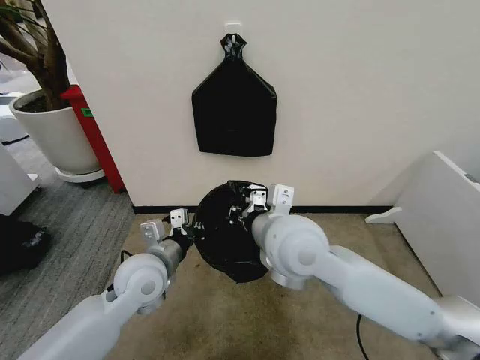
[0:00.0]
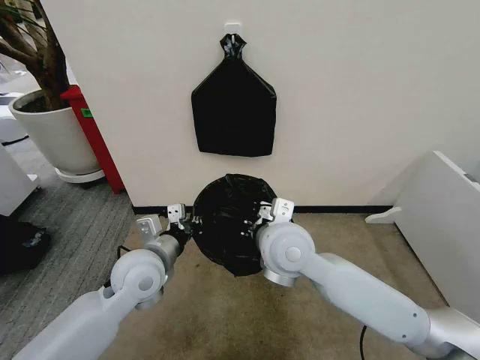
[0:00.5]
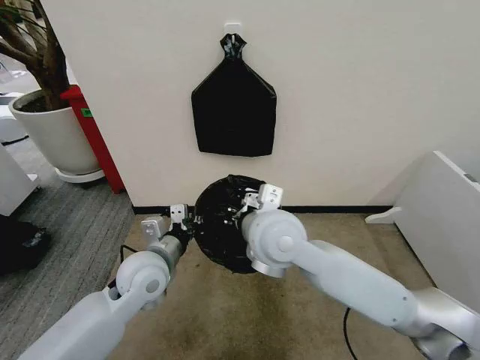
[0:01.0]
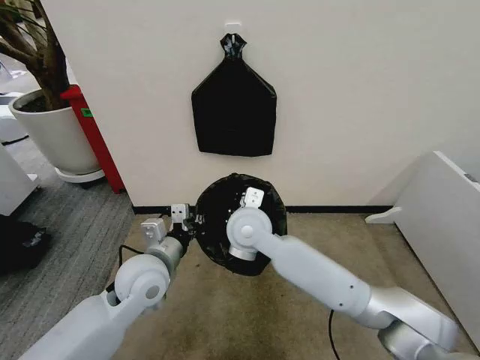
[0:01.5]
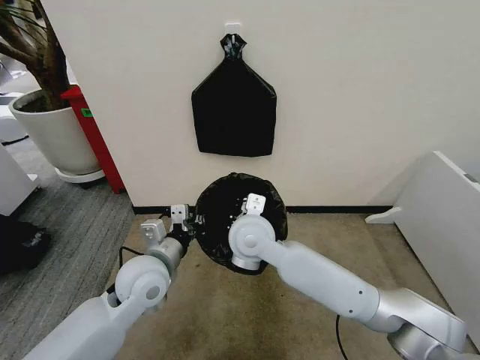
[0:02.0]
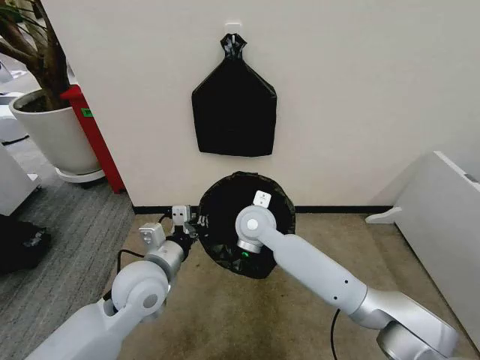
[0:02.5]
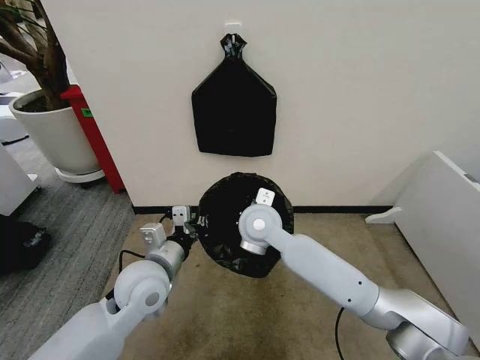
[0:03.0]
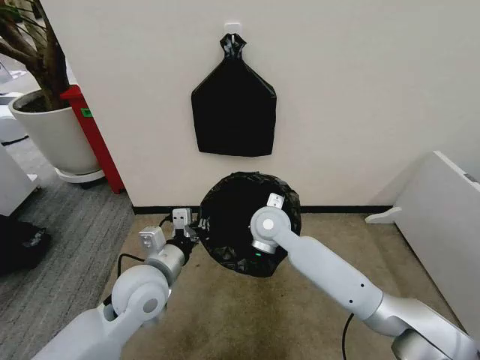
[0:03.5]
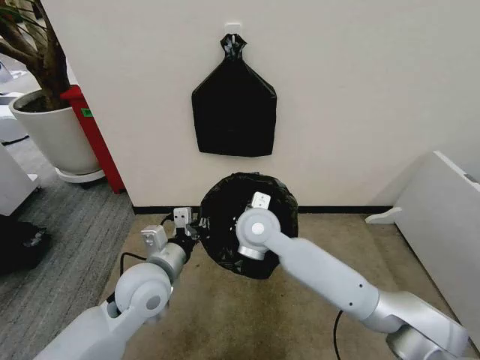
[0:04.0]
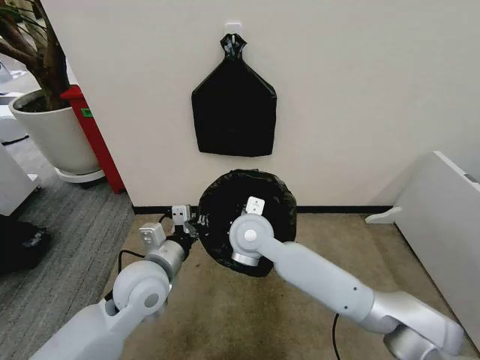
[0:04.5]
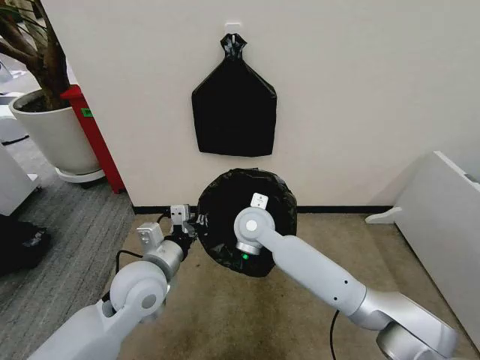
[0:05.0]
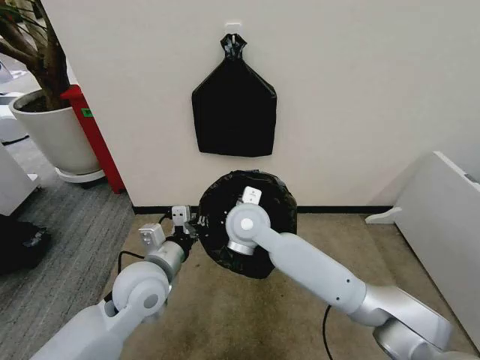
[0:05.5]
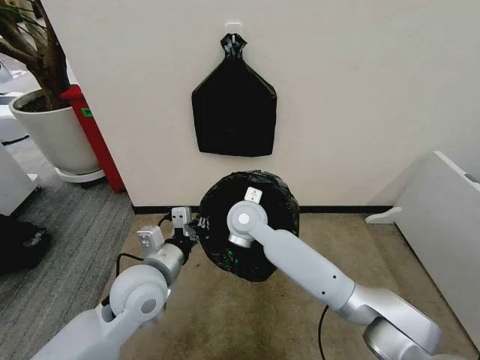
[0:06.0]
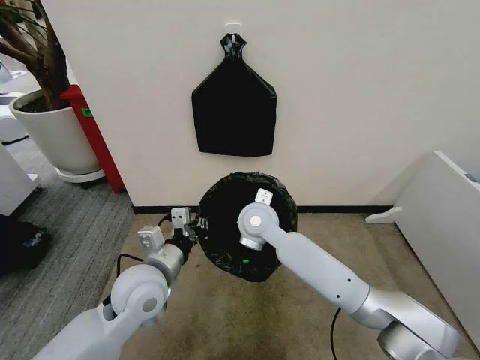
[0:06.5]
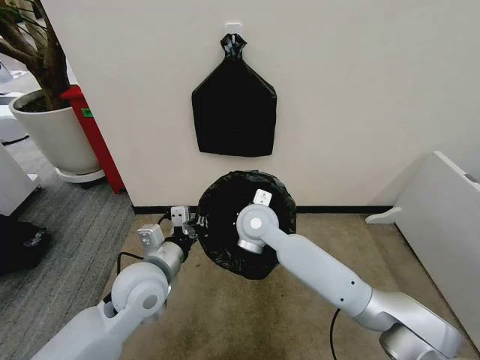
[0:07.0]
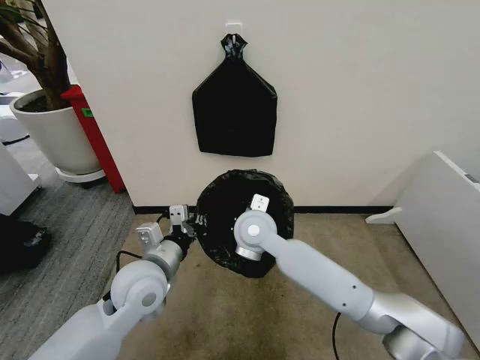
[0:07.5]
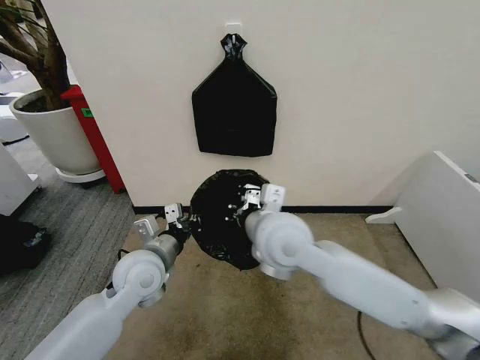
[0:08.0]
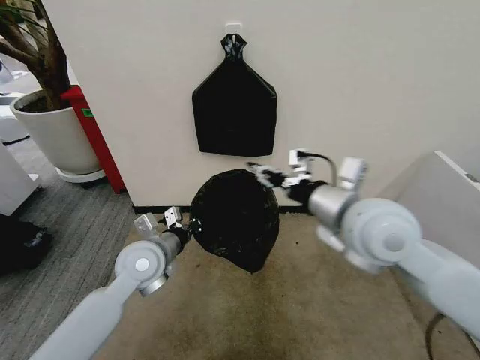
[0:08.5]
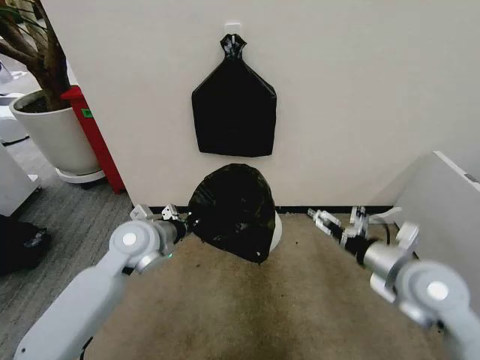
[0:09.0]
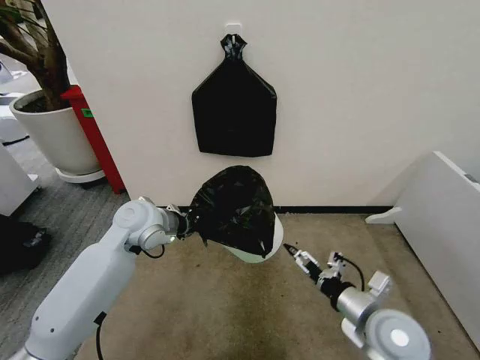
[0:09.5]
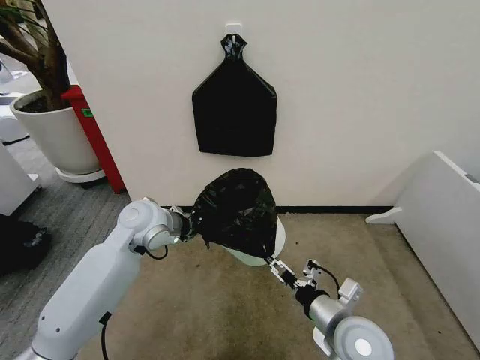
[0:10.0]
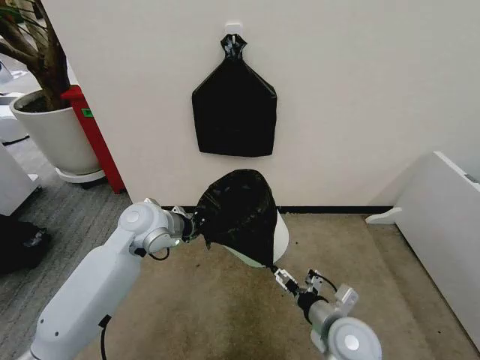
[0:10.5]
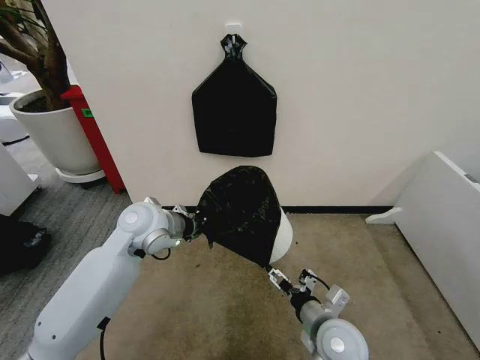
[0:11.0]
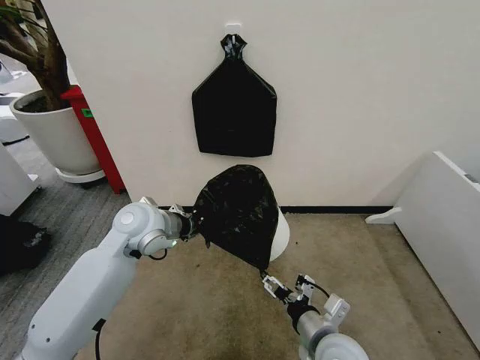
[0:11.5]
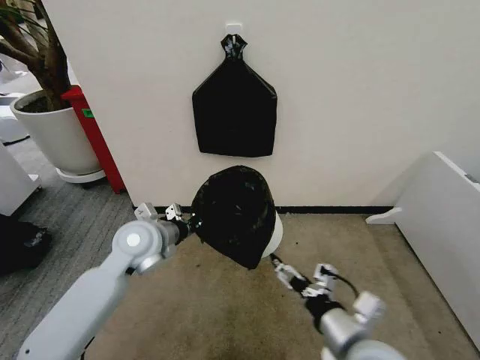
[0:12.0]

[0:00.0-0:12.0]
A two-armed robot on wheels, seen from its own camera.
Task of the whole recording: Place the garbage bag over the trash bin.
0:00.0 to 0:02.0: The right gripper travels downward, forward and to the left by approximately 10 cm.
0:04.0 to 0:06.0: The right gripper shifts by about 5 cm.
0:06.0 to 0:08.0: The right gripper travels backward, upward and to the right by some 15 cm.
0:08.0 to 0:10.0: The left gripper moves forward, approximately 10 cm. Meanwhile the right gripper is displaced downward, to the right and backward by roughly 25 cm, and opens up.
0:10.0 to 0:12.0: The right gripper moves some 5 cm.

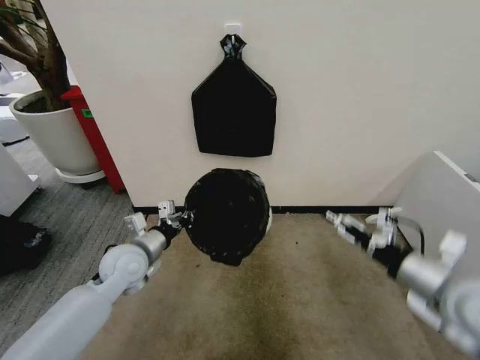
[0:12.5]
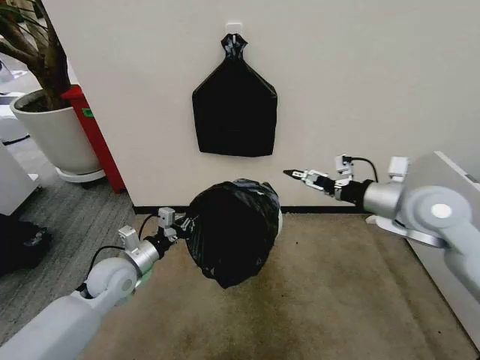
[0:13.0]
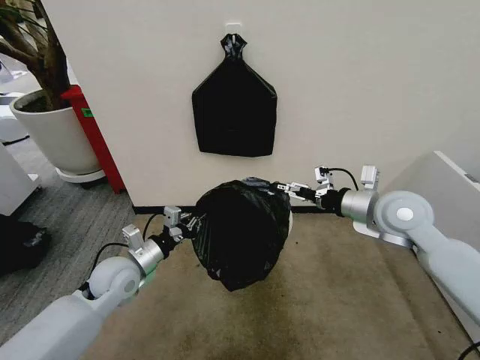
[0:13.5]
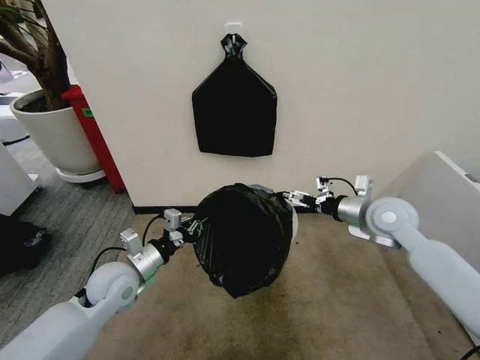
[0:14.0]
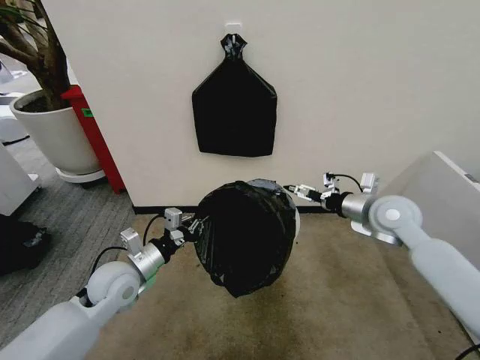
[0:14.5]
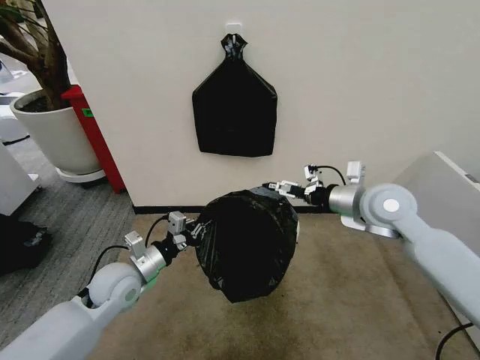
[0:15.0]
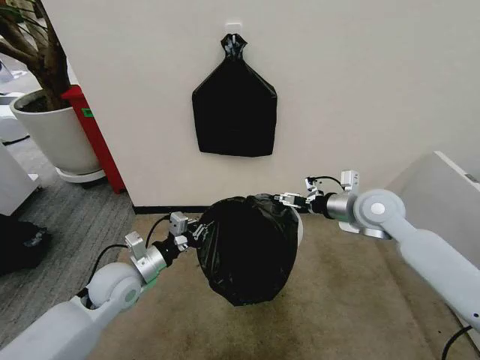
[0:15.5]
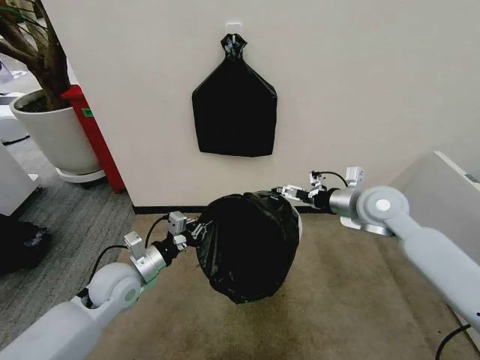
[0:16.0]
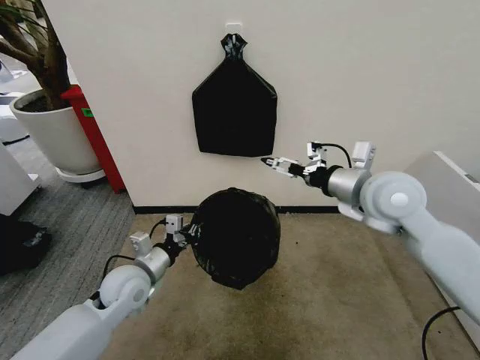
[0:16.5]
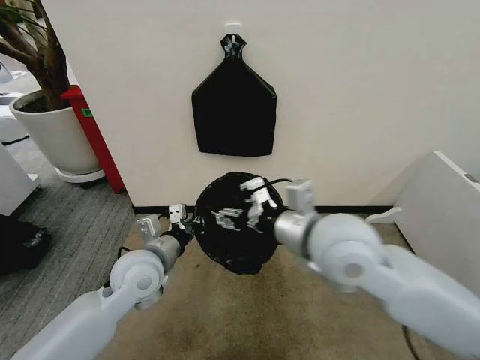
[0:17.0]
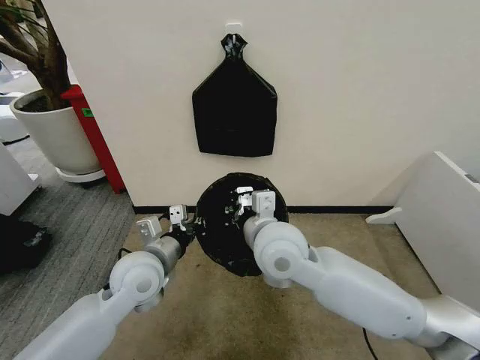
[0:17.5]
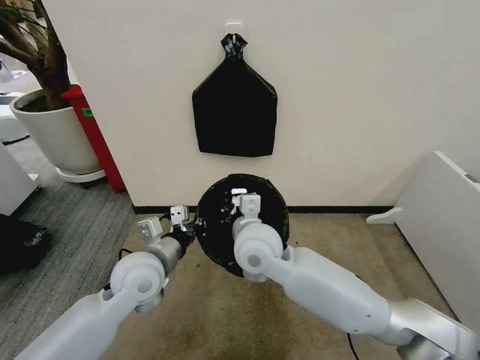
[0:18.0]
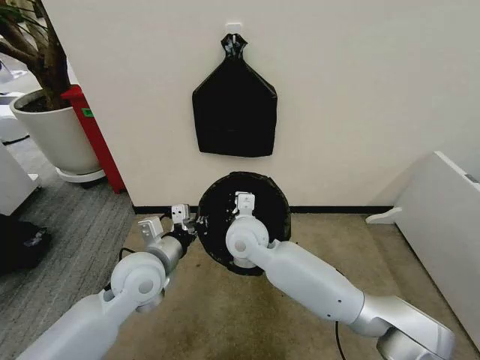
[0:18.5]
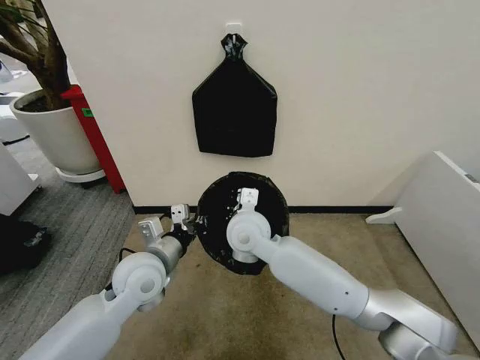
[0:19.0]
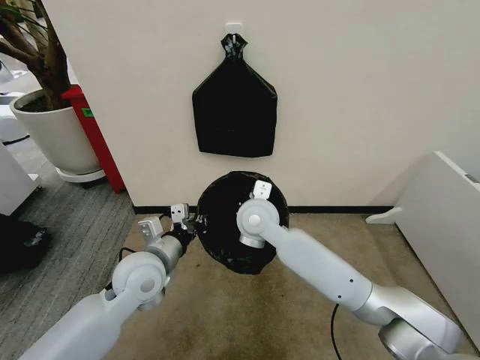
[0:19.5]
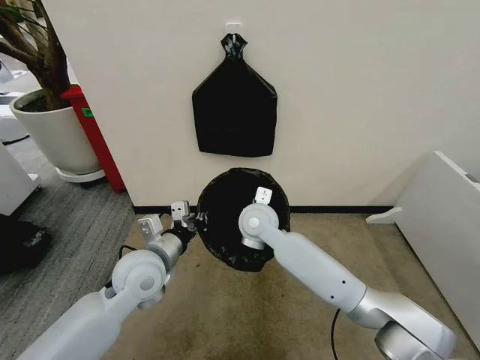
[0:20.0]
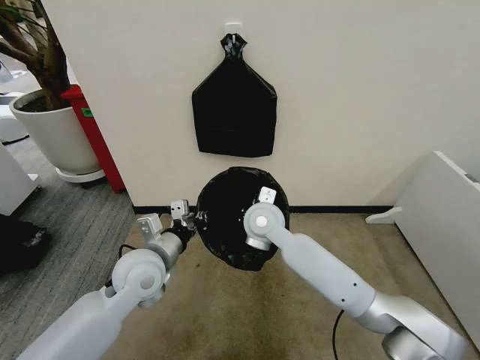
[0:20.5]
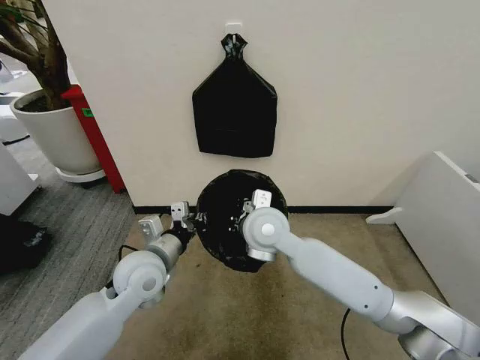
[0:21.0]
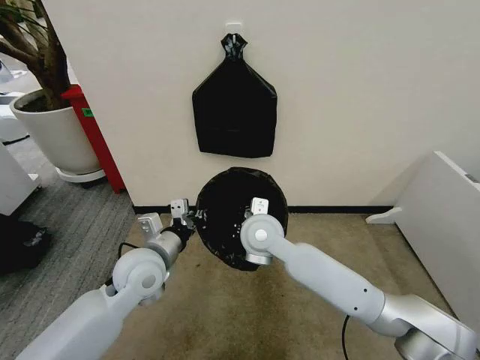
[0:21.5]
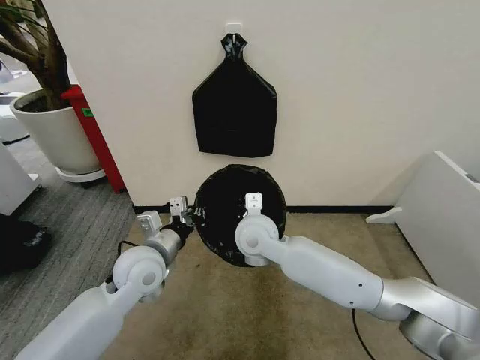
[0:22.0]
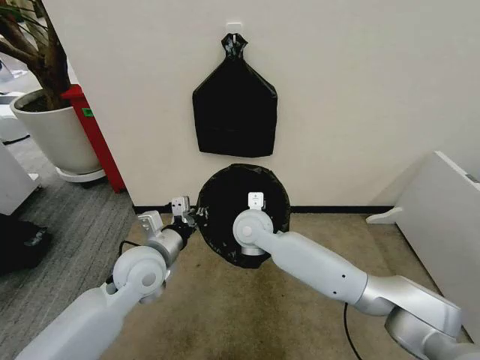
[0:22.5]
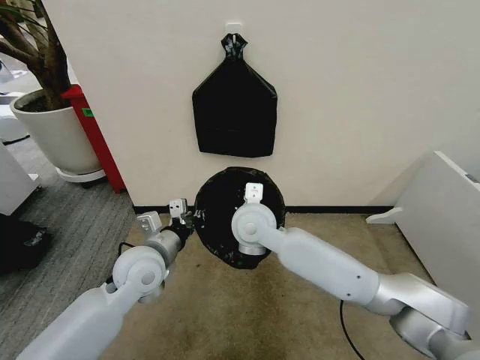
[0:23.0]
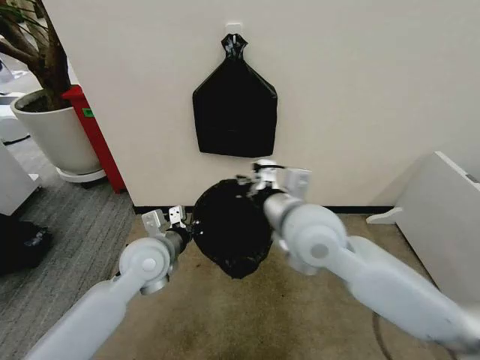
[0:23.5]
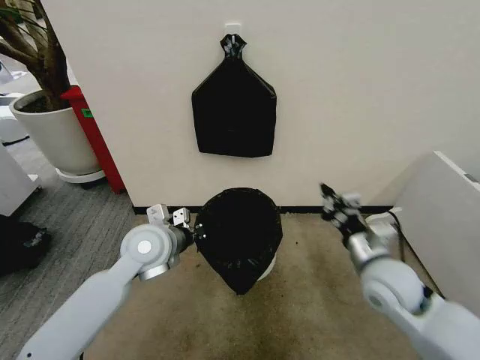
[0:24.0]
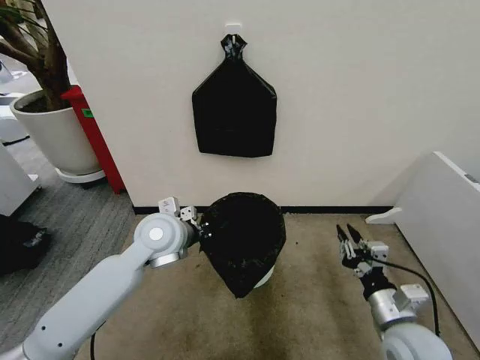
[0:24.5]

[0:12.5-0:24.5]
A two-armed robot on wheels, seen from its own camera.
Task of the whole recording: Place the garbage bag over the trash bin.
0:12.5 to 0:14.5: The right gripper is displaced forward by roughly 20 cm.
0:14.5 to 0:16.5: The right gripper heads upward and to the left, covering some 10 cm.
0:16.5 to 0:18.5: The left gripper shifts roughly 10 cm upward and to the right; the right gripper is displaced to the left and downward by roughly 30 cm, and closes its fingers.
0:18.5 to 0:20.5: The right gripper ends up roughly 5 cm from where it was.
0:22.5 to 0:24.5: The left gripper heads forward, covering roughly 5 cm, while the right gripper shifts approximately 35 cm to the right and backward.

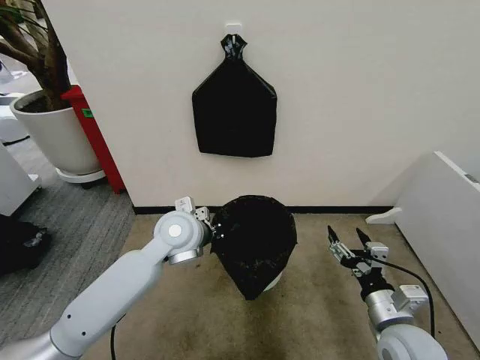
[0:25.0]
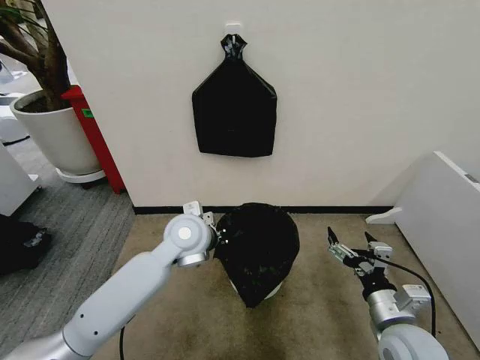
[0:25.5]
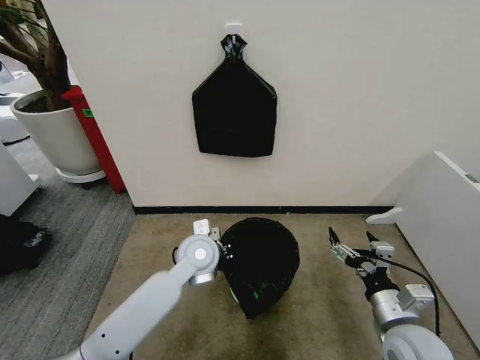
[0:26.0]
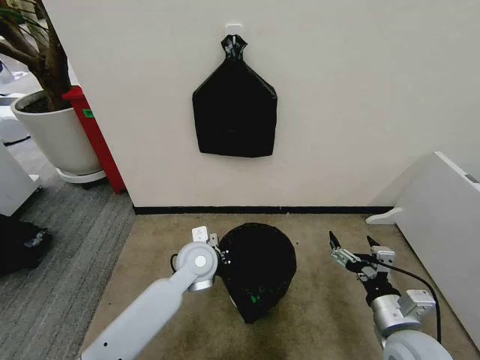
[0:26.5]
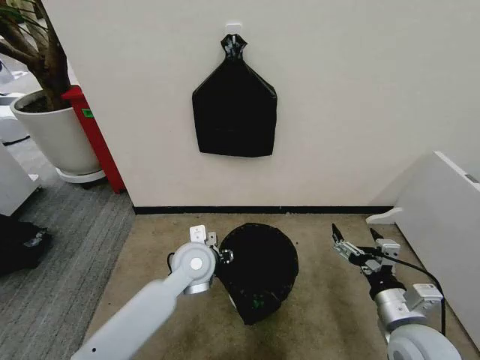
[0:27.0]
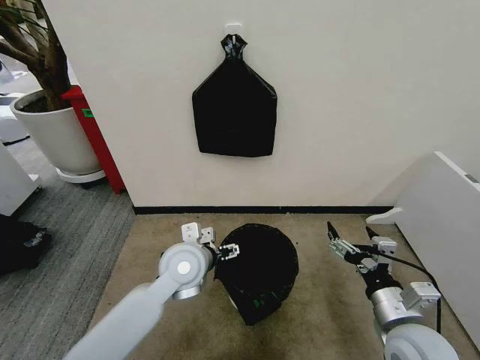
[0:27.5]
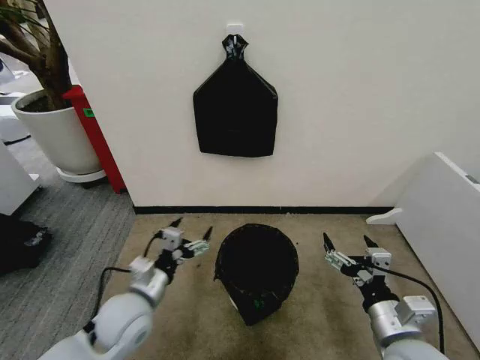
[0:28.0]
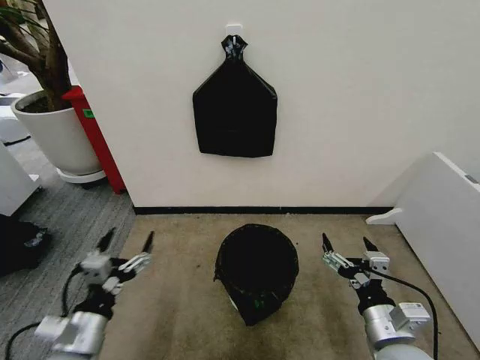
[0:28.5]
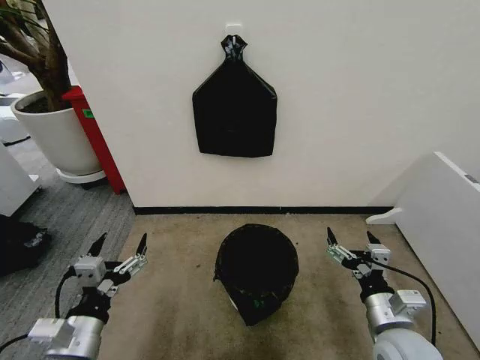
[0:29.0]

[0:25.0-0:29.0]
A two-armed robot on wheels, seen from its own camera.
Task of the whole recording: Place the garbage bag over the trash bin.
0:25.0 to 0:27.0: The left gripper moves downward, some 10 cm, and opens up.
0:27.0 to 0:29.0: The left gripper shifts approximately 30 cm backward and to the left, and opens its fingers.
